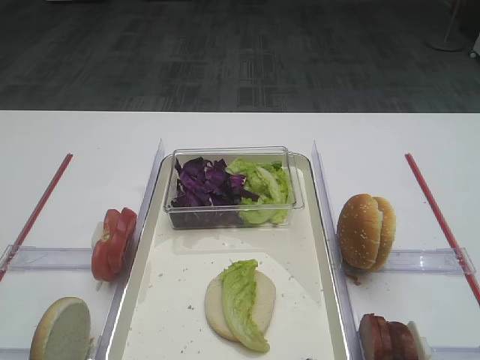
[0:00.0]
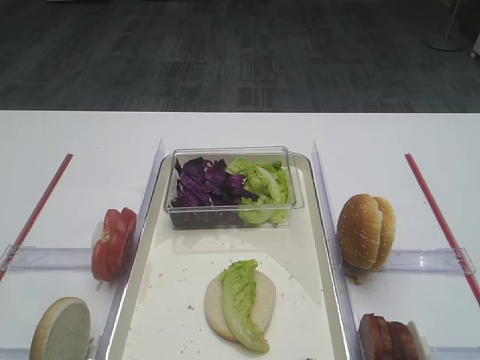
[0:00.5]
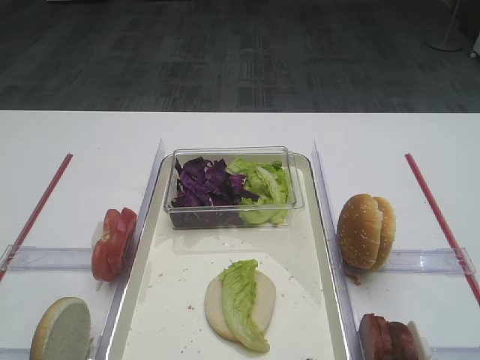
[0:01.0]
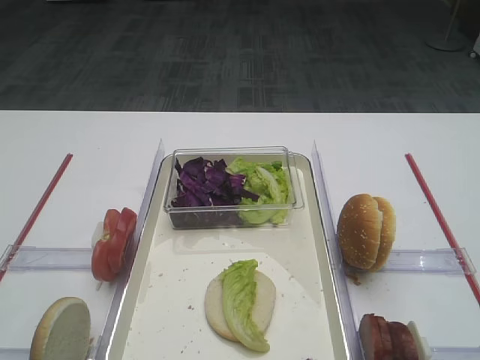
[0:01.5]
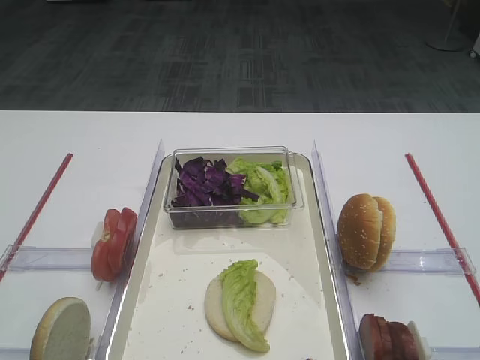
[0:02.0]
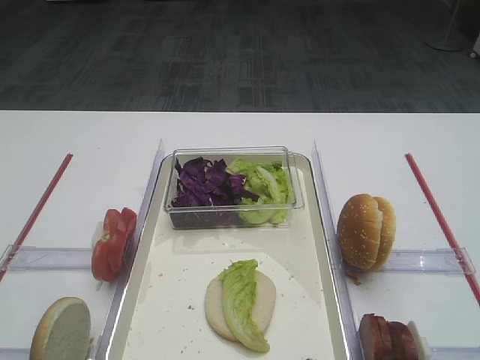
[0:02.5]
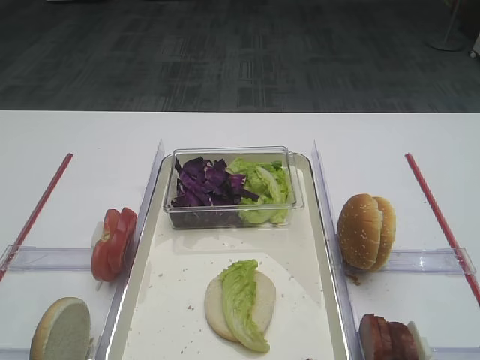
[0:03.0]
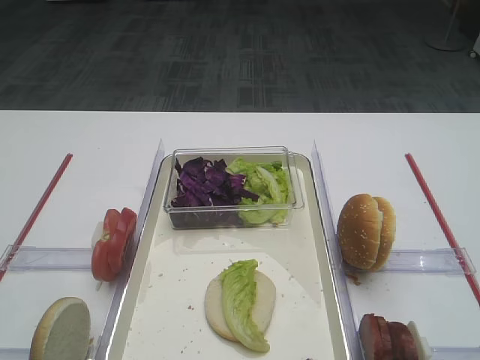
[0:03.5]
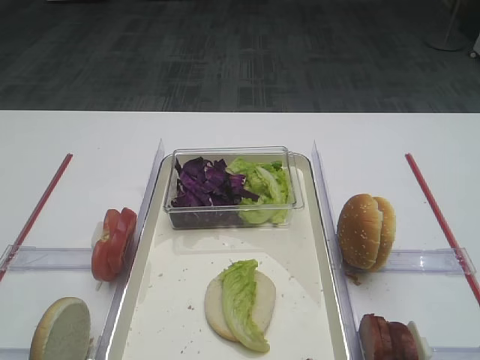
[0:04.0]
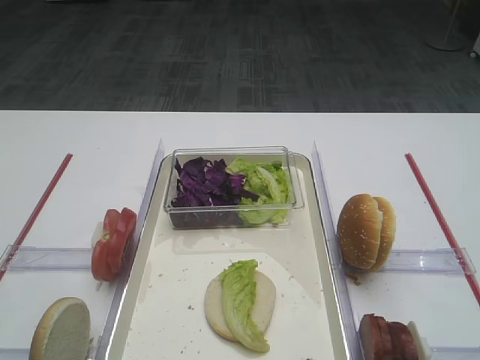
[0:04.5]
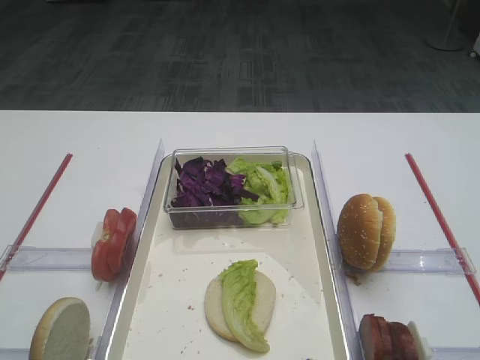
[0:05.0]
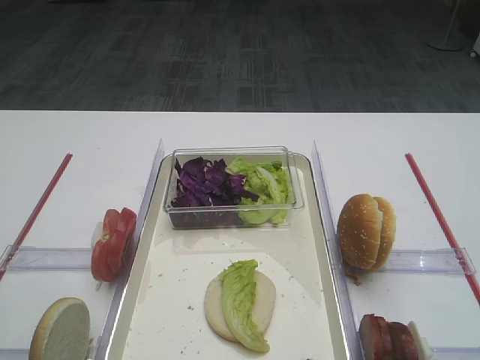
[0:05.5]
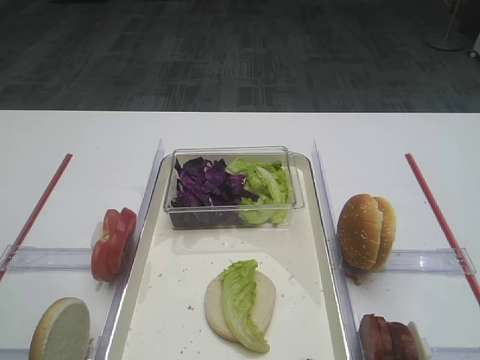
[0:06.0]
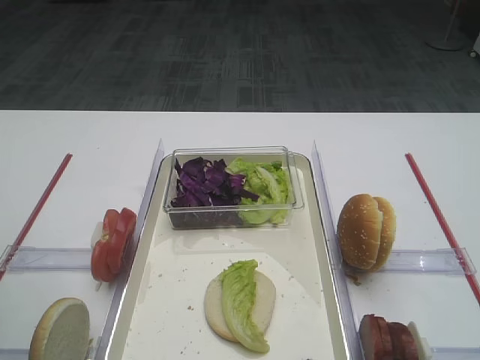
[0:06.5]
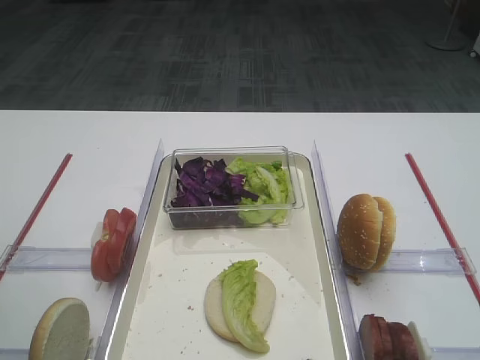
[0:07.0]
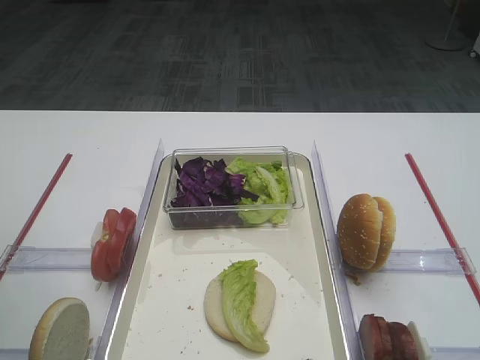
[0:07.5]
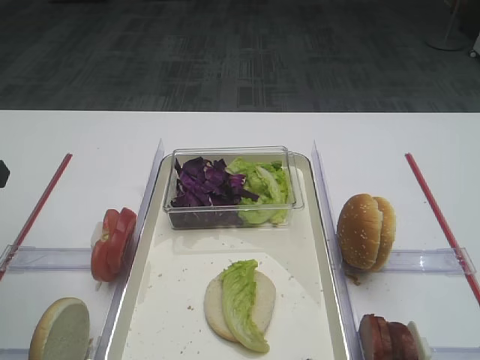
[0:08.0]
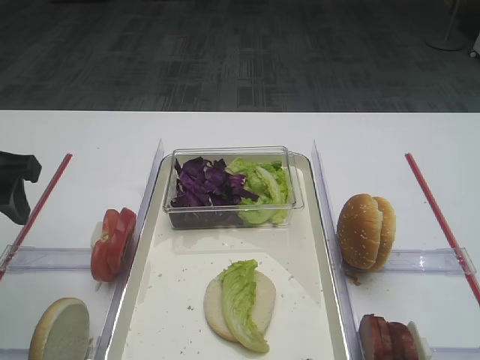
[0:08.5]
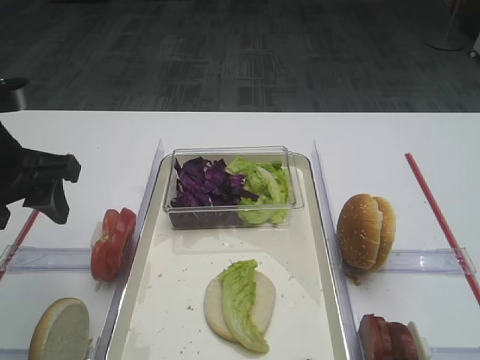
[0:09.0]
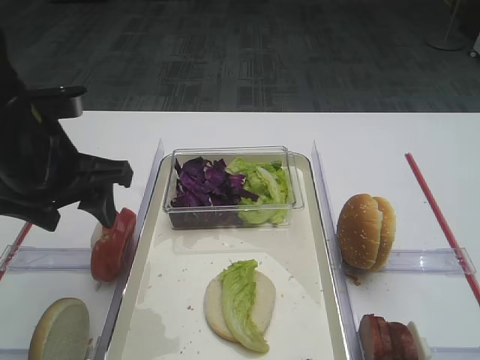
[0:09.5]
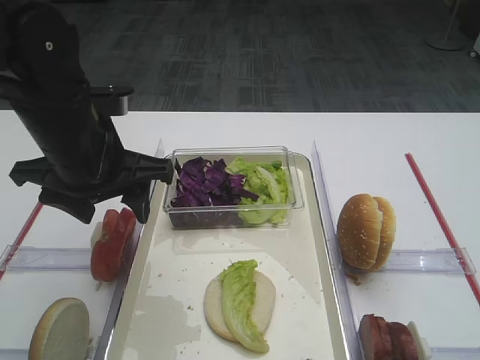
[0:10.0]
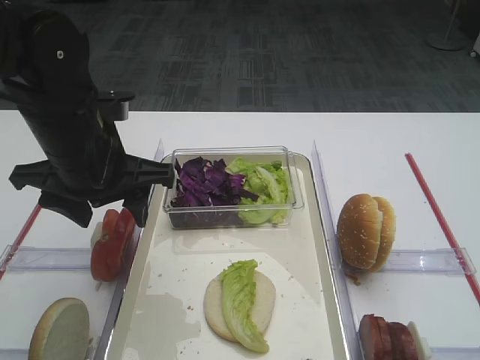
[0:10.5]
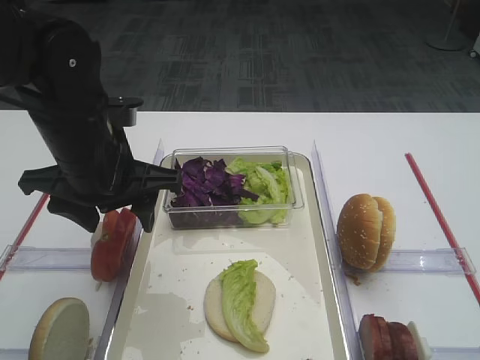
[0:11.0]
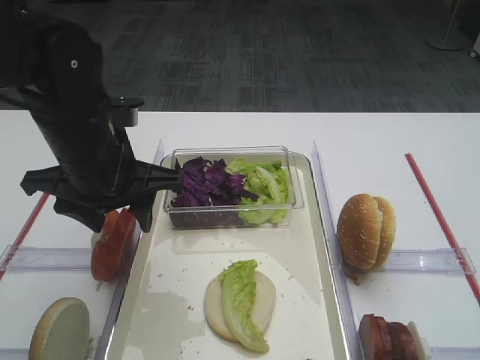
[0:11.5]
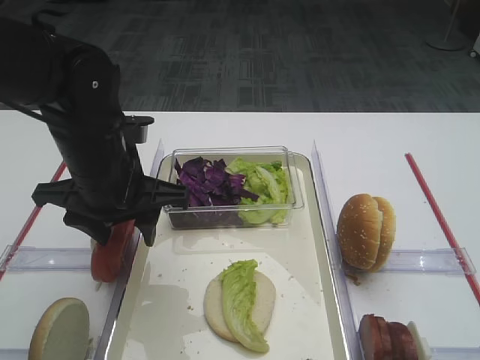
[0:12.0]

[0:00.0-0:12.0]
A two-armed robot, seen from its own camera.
0:08.0 to 0:10.0: The left gripper travels to the right by approximately 15 cm.
0:10.0 to 0:12.0: There are only small adjustments of the grippers.

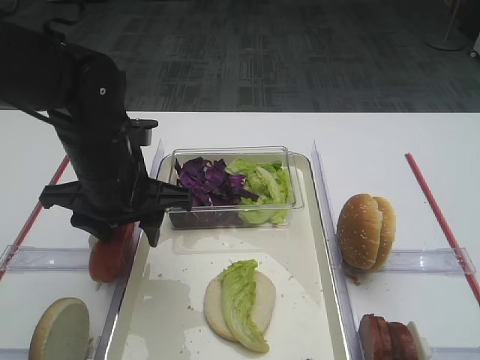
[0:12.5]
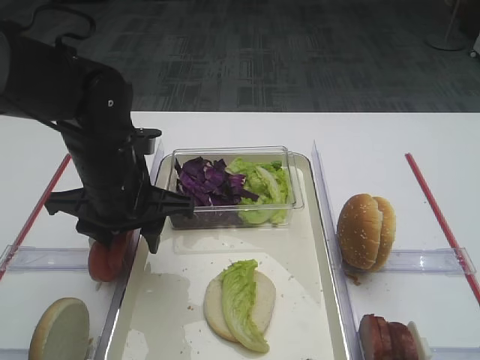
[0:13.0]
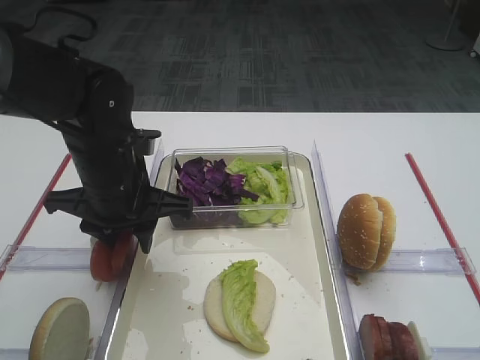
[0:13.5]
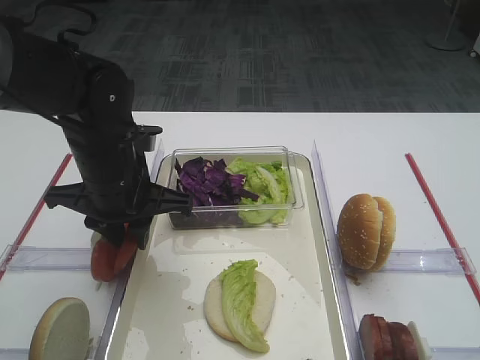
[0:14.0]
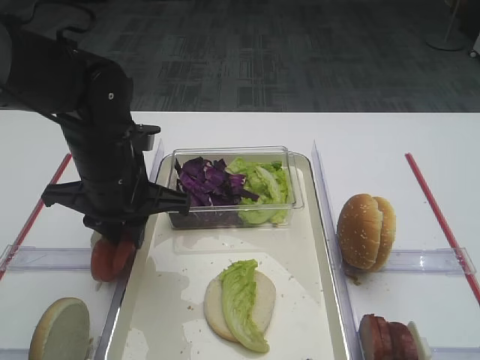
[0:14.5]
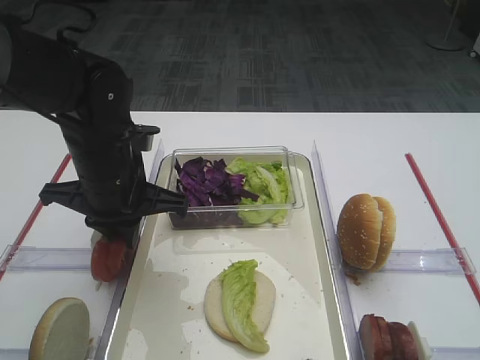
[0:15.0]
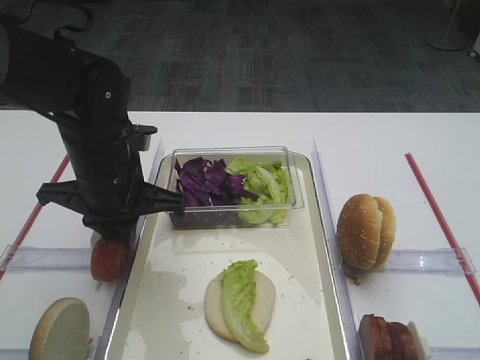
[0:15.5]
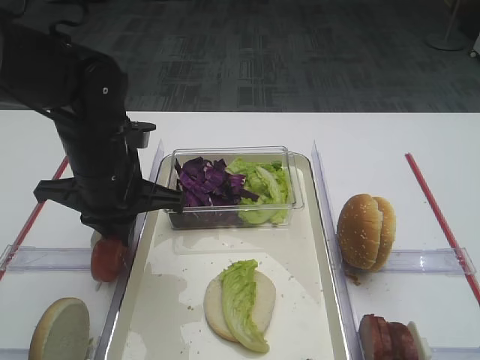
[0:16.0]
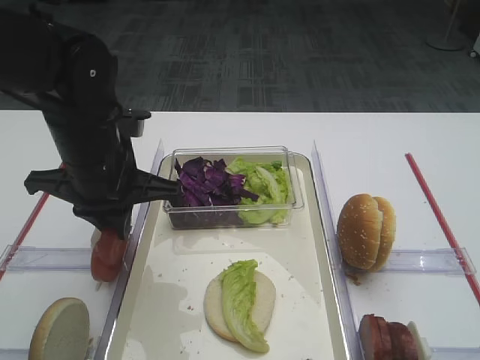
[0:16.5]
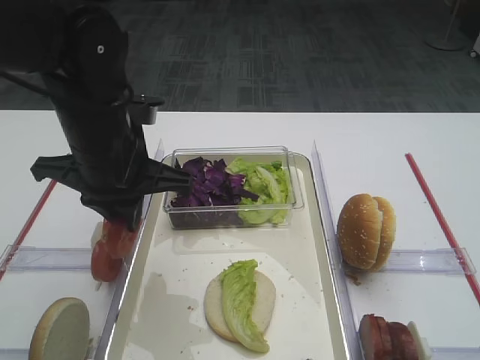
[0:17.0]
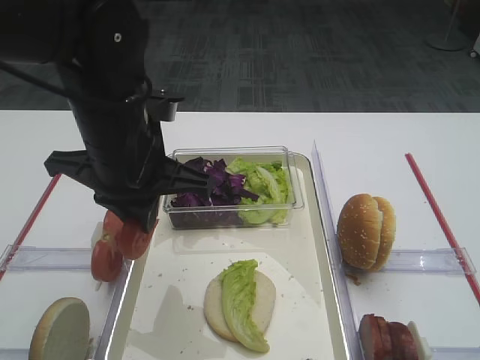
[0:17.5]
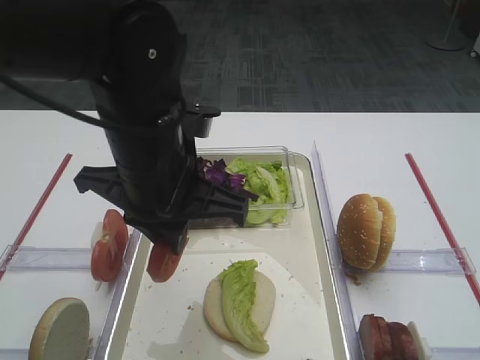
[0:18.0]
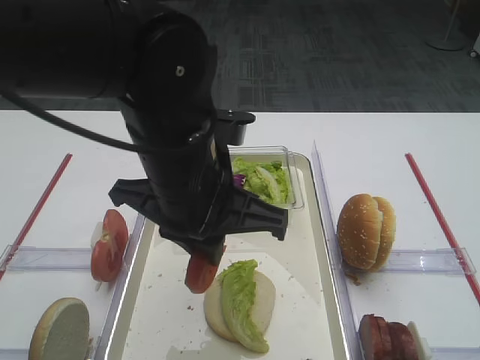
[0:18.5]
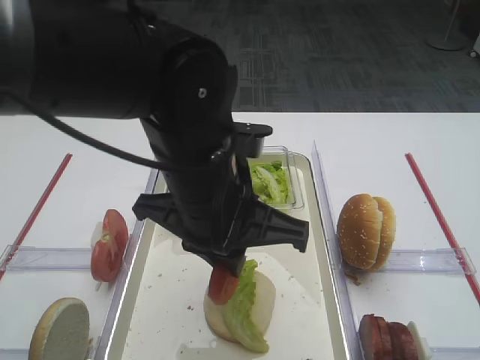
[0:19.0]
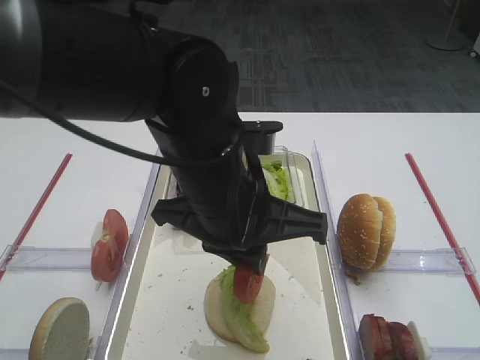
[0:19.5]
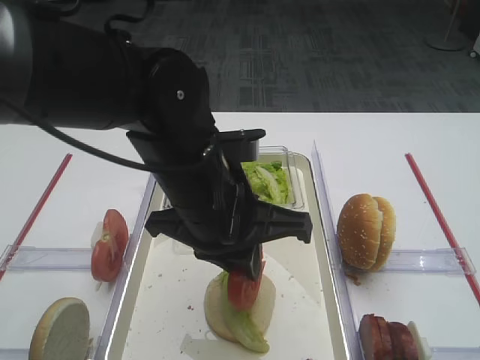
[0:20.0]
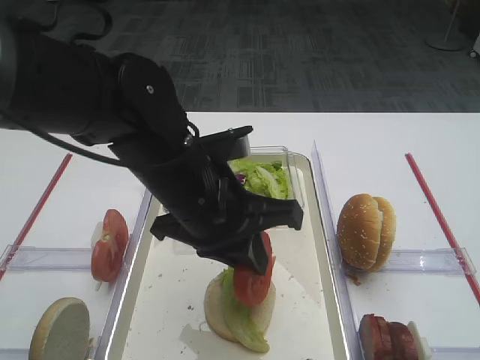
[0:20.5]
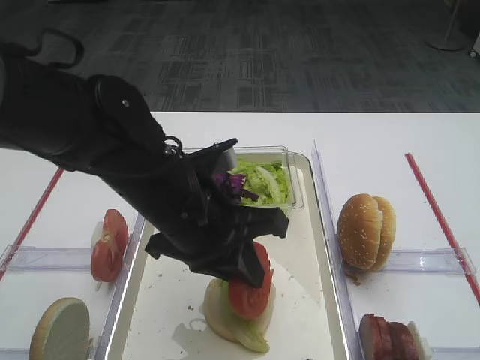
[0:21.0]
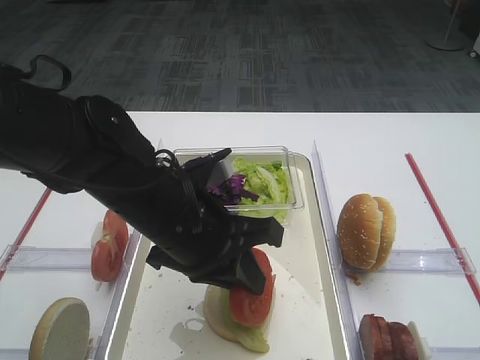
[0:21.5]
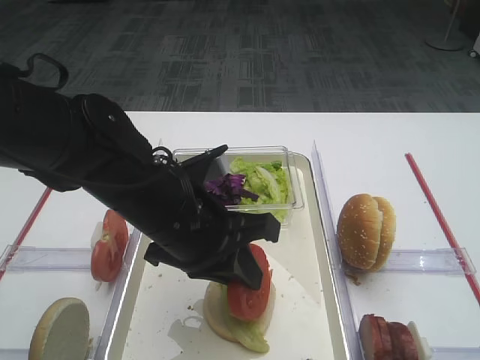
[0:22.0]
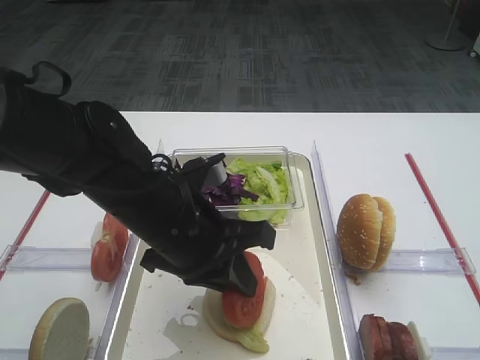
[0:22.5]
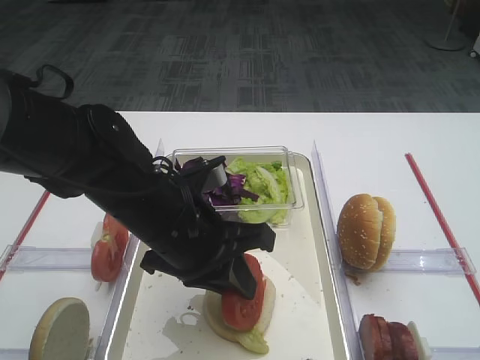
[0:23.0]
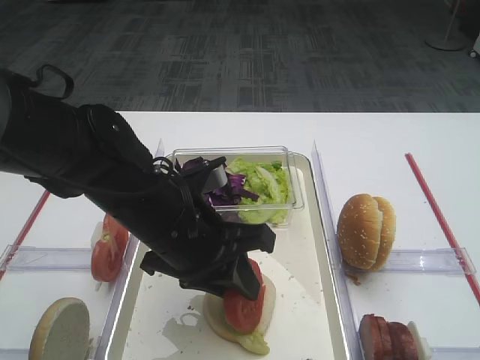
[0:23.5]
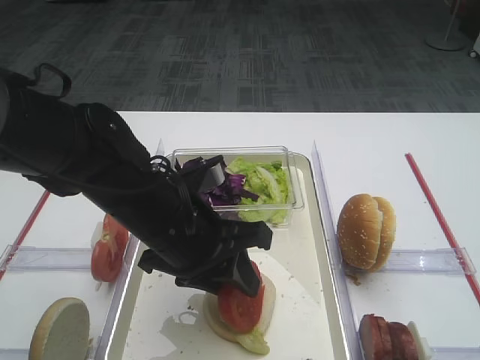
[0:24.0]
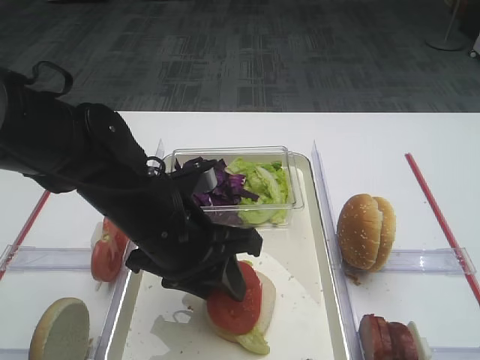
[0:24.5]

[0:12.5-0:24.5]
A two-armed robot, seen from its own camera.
Step, 0:12.5 to 0:17.0: Pick up the tomato slice with the left gripper.
0:12.5 to 0:14.5: The left gripper closes up.
0:14.5 to 0:16.5: The grippers make only small movements.
0:16.5 to 0:18.5: The left gripper goes roughly 10 cm to the right and backward.
0:20.5 to 0:22.5: There are only small adjustments of the grippers.
0:22.5 to 0:24.5: The left gripper opens up.

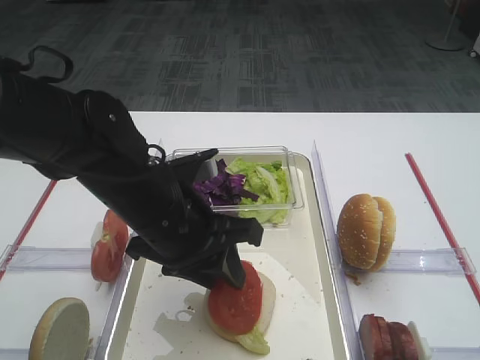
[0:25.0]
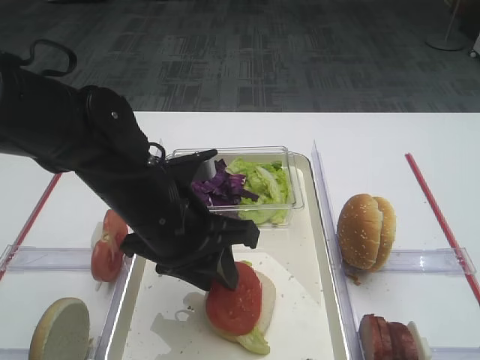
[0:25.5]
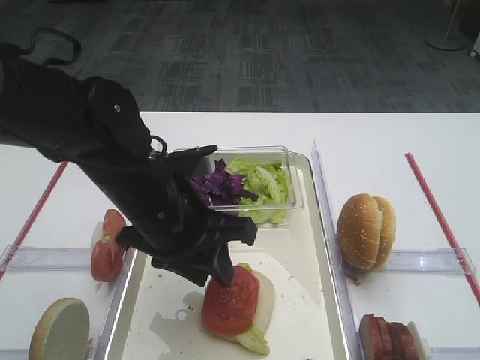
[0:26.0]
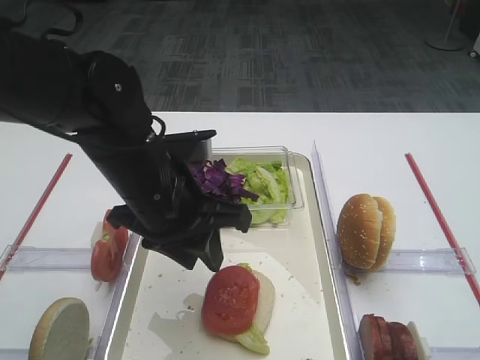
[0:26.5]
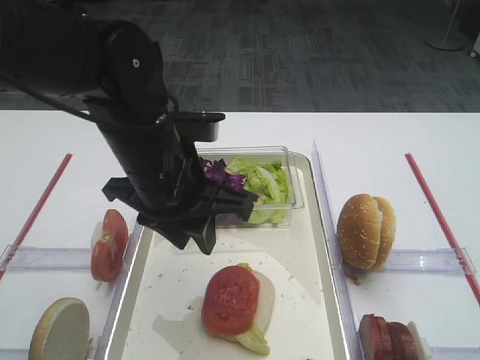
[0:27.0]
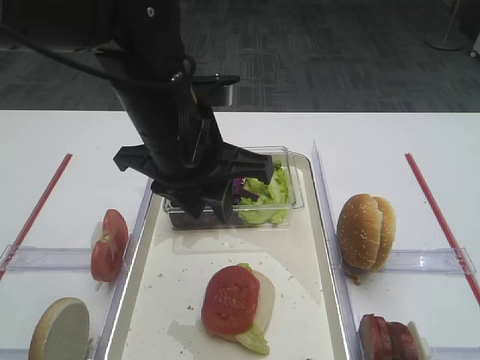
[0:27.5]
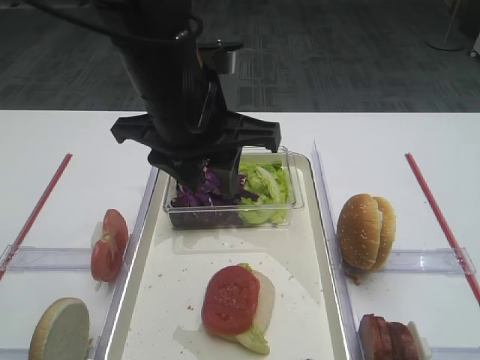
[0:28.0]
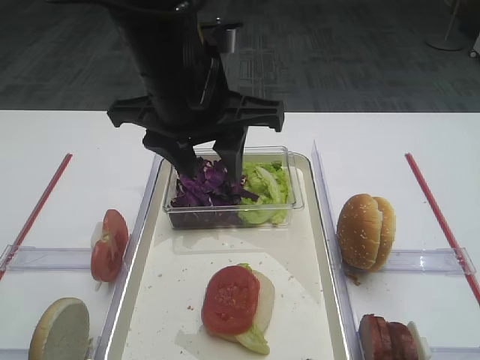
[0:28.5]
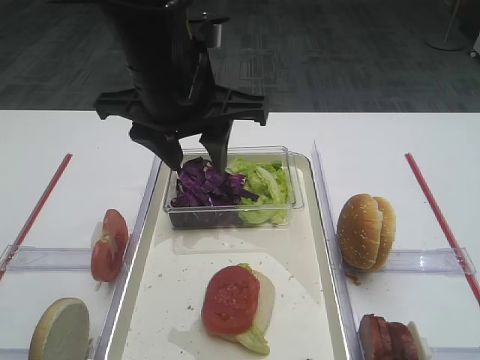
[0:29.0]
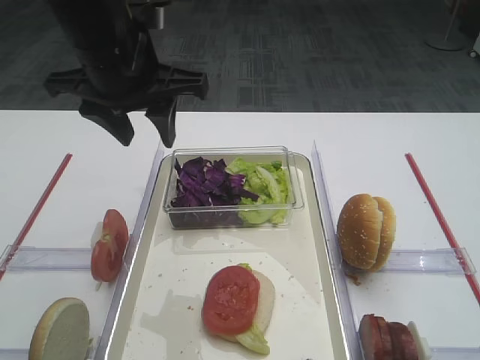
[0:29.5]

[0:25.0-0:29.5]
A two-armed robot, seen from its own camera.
Step, 0:25.0 to 0:27.5: Place the tomato slice on the lettuce leaf with the left gripper.
0:25.0 to 0:27.0: The left gripper moves approximately 5 cm.
0:27.0 to 0:29.5: The left gripper shifts approximately 10 cm upward and forward.
